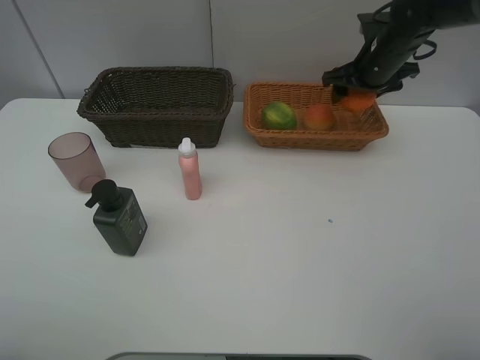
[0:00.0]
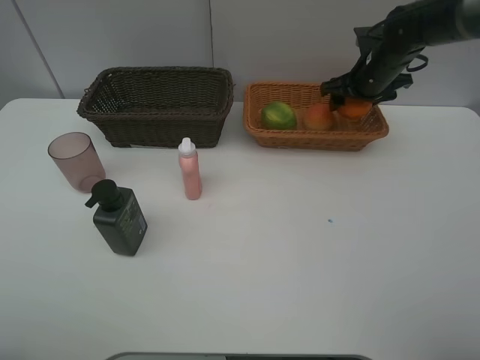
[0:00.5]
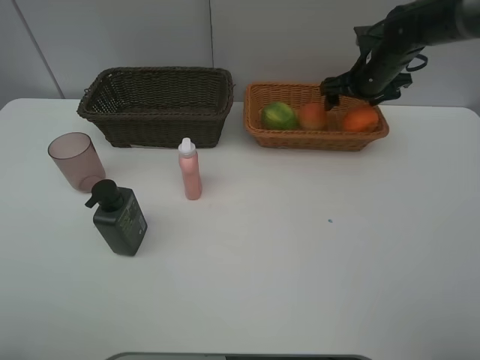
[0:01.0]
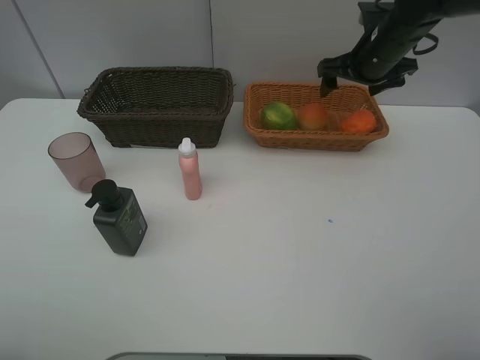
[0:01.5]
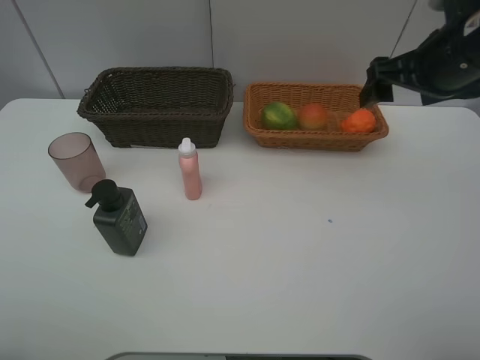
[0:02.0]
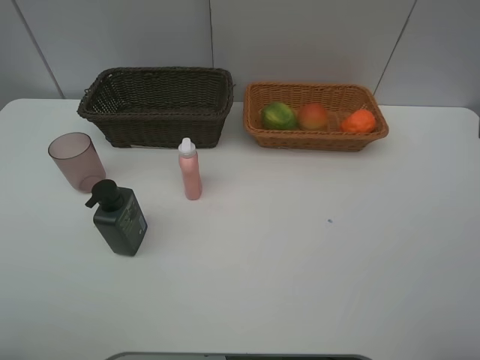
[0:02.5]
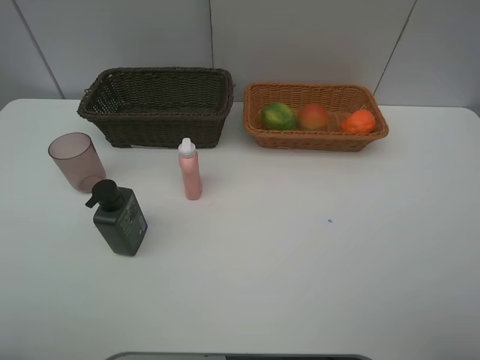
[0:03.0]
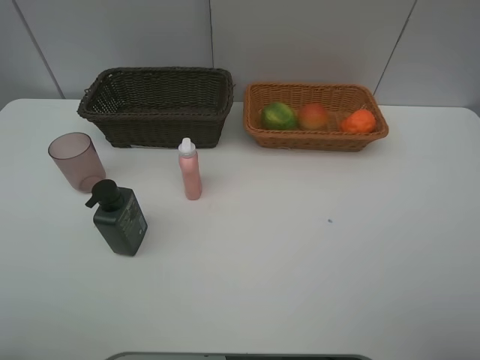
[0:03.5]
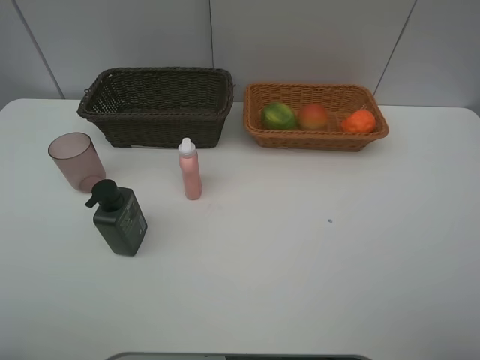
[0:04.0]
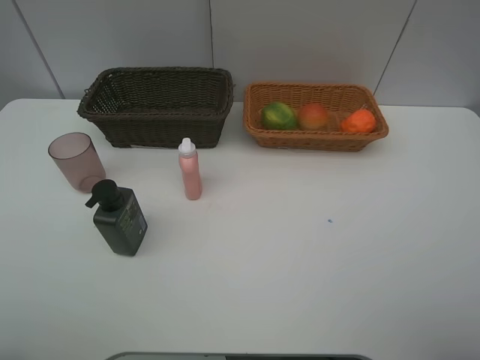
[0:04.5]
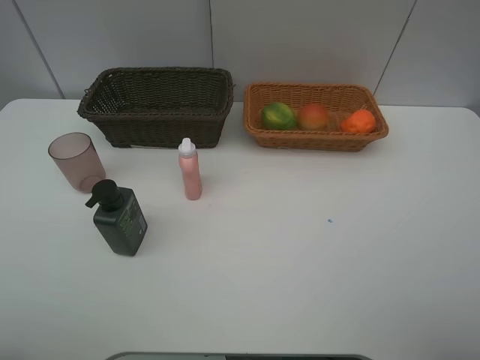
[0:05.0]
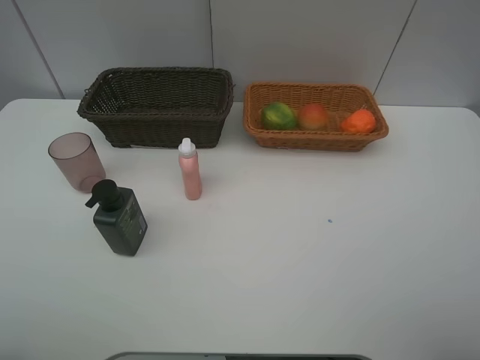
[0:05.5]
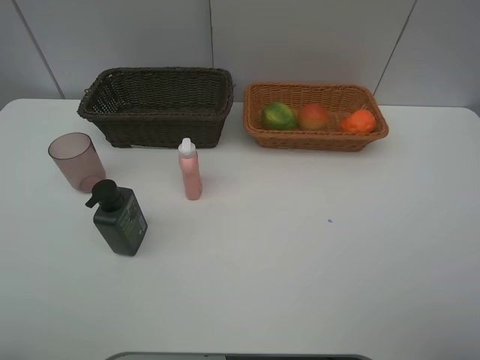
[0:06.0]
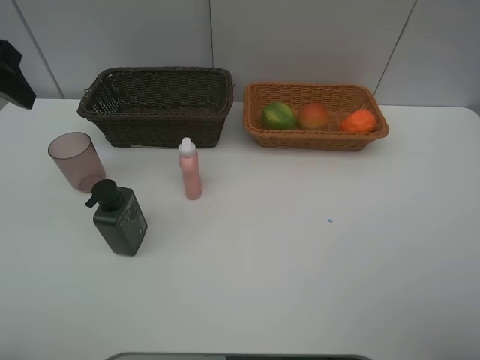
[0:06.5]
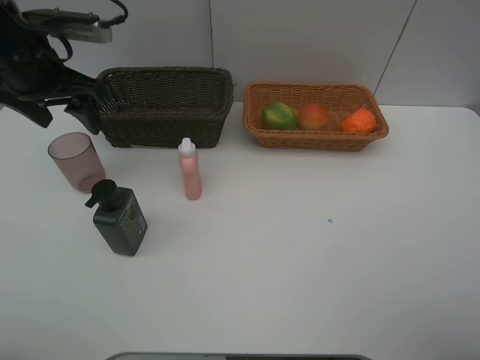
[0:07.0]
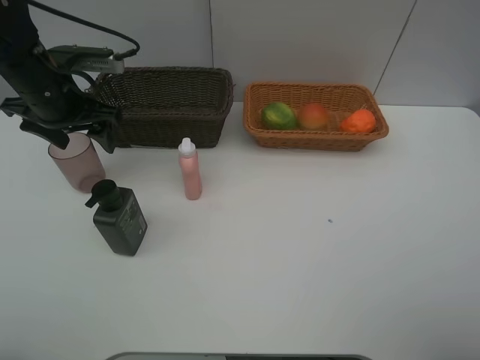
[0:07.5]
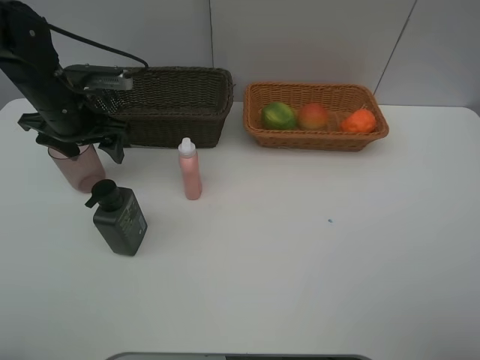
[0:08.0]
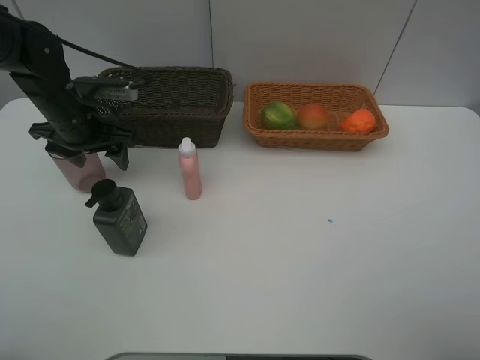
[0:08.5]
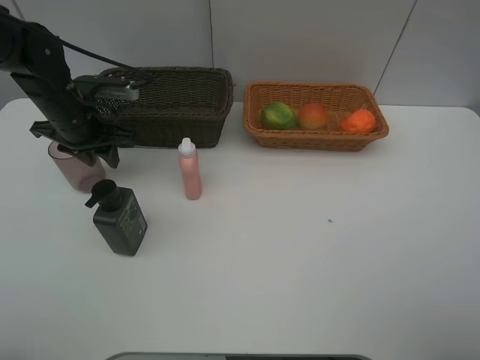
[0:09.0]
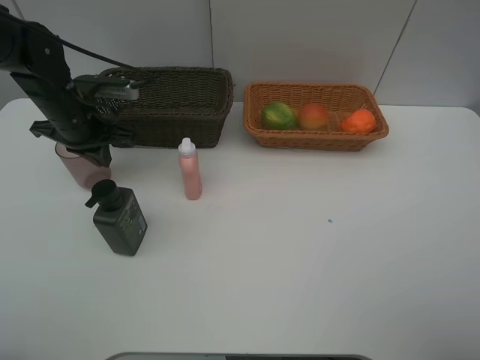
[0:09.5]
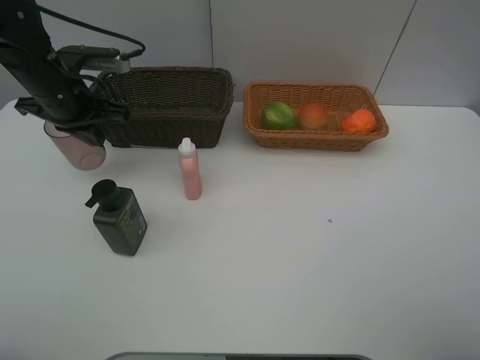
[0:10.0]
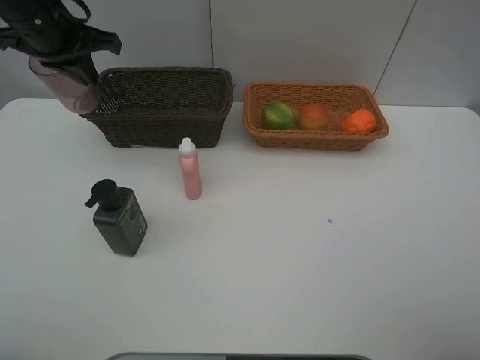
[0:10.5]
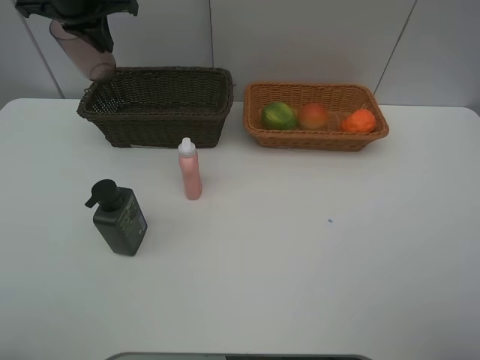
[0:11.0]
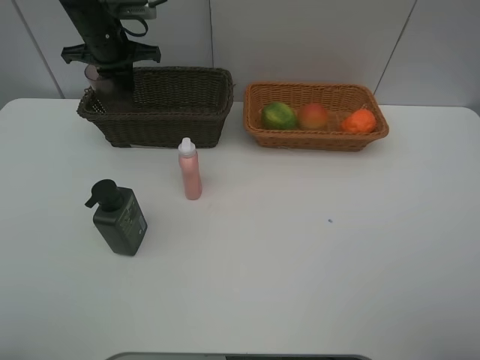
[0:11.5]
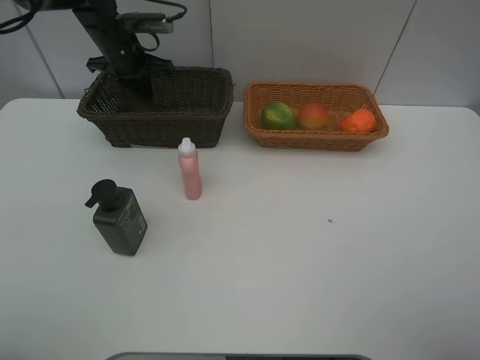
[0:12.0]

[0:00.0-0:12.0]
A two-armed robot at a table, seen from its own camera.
Task of the whole recording: place multiple objects separately in different baskets.
0:00.0 to 0:02.0: The right gripper shifts approximately 20 cm backward and upward, and opens.
0:02.0 to 0:04.0: The right gripper shifts approximately 25 cm backward.
0:06.0 to 0:08.0: The left gripper moves forward and downward, roughly 35 cm.
0:08.0 to 0:10.0: The left gripper closes its fingers.
0:10.0 to 0:12.0: The left gripper heads forward, covering roughly 15 cm.

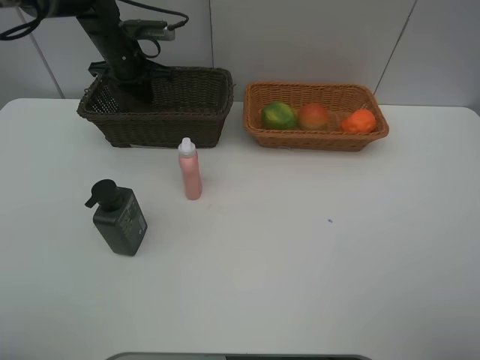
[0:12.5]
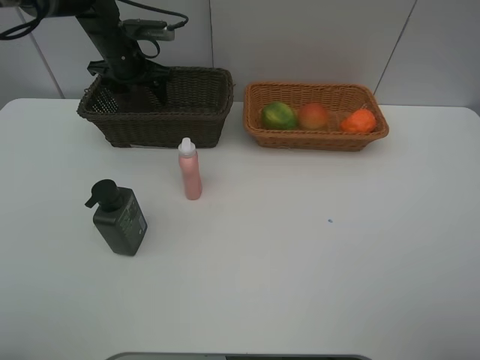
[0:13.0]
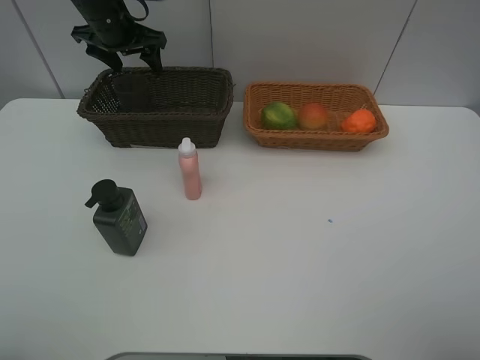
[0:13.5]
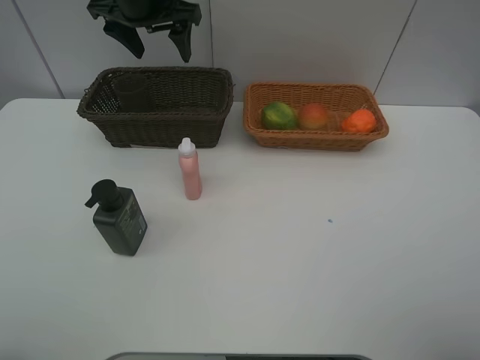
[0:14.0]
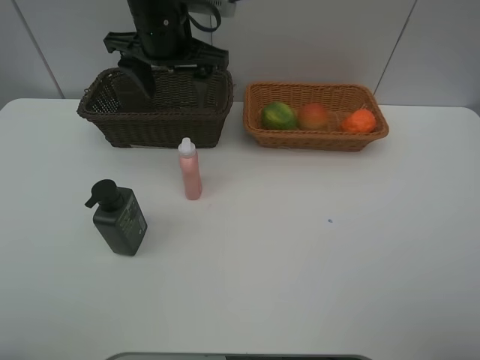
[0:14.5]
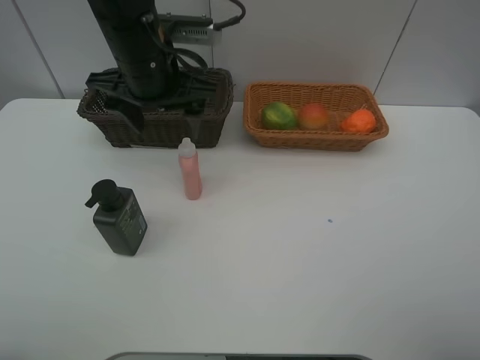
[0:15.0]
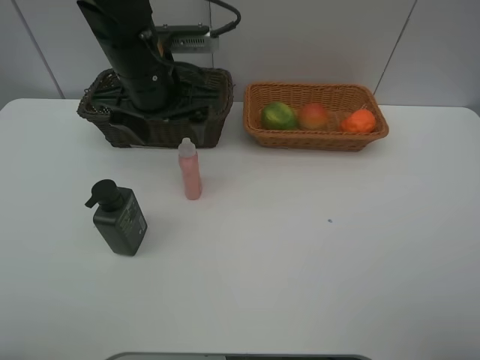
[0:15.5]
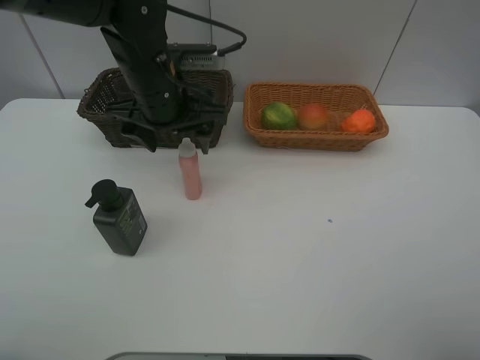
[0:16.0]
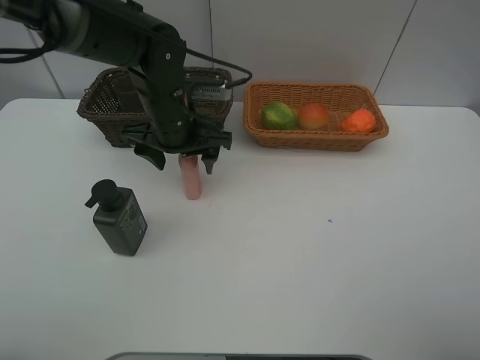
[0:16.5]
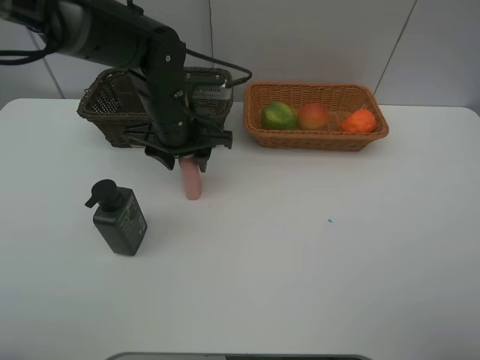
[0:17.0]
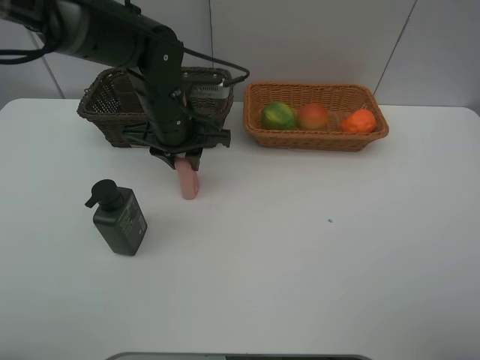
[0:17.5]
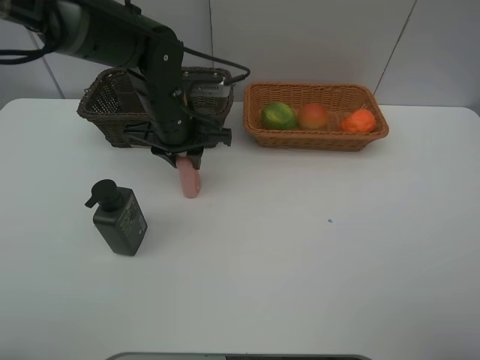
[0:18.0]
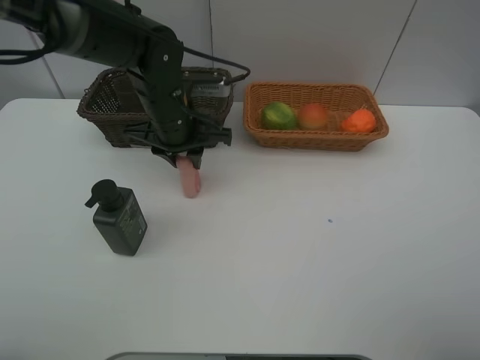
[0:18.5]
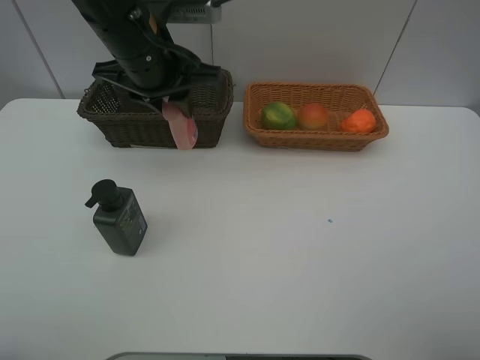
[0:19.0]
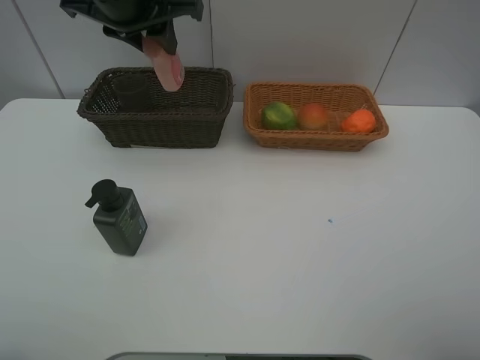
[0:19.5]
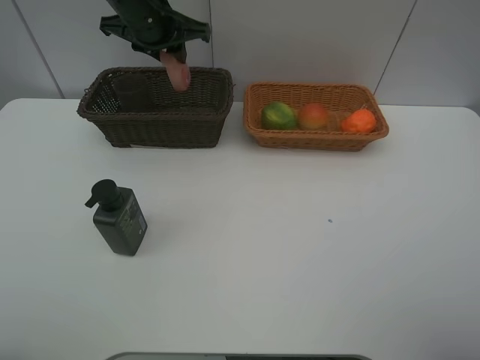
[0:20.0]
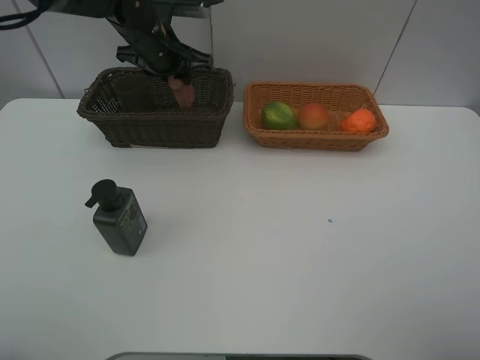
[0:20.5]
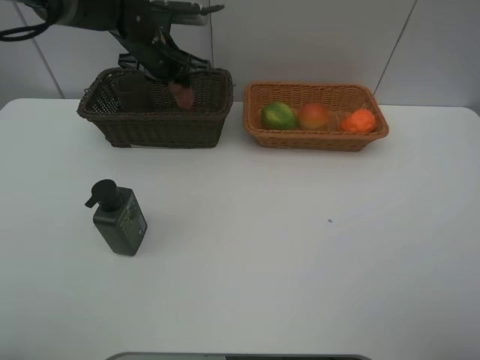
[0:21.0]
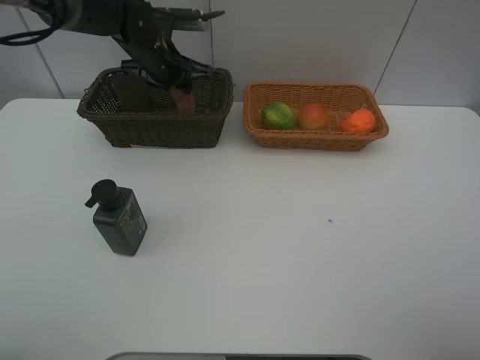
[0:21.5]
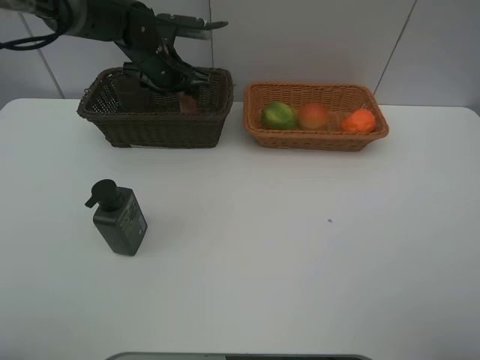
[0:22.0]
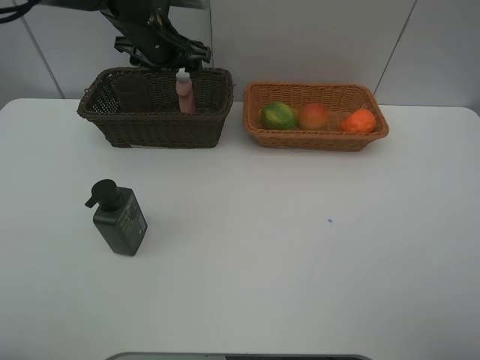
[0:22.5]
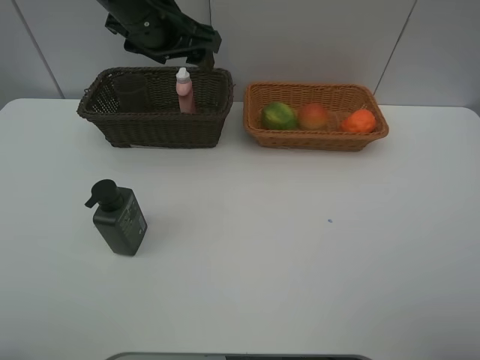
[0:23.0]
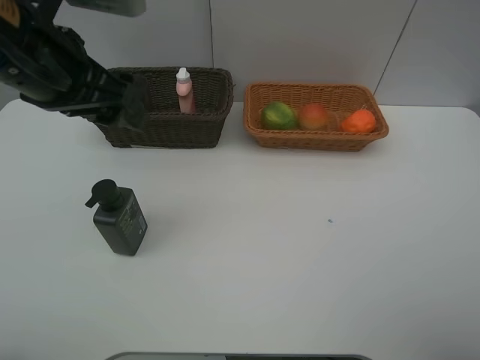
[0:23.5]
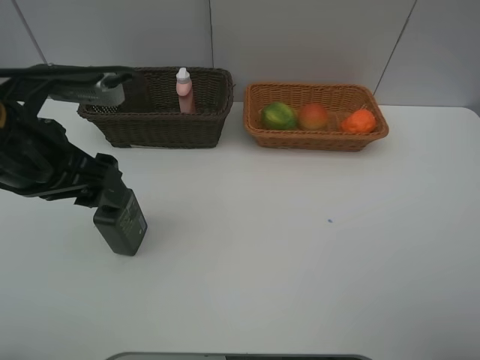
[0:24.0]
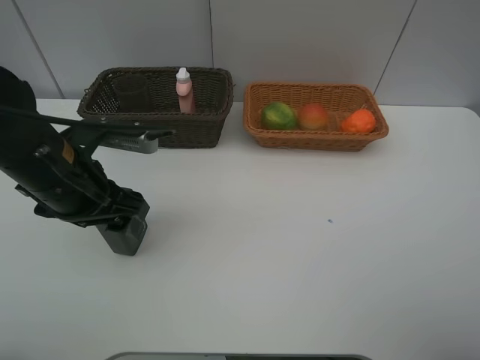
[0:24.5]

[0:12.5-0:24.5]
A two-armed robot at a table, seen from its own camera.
Task of the whole recording: place multiple objects separately in different baskets.
0:12.5 to 0:14.5: The left gripper travels backward, to the right and upward by some 20 cm, and opens.
0:14.5 to 0:16.5: The left gripper goes some 10 cm downward.
0:16.5 to 0:18.5: The left gripper closes.
0:18.5 to 0:20.5: The left gripper shifts roughly 10 cm forward, and moves some 15 cm upward and comes back.
0:20.5 to 0:22.5: The left gripper opens its fingers.
0:22.5 to 0:24.5: The left gripper heads backward, covering some 25 cm.

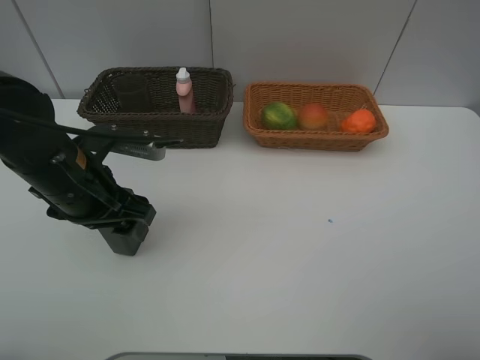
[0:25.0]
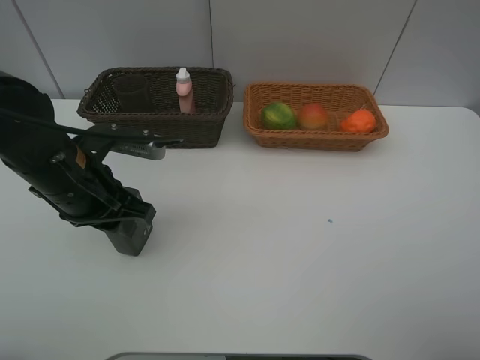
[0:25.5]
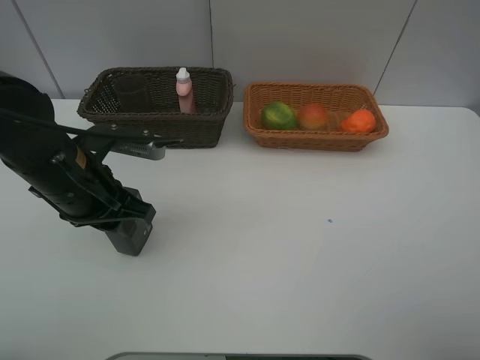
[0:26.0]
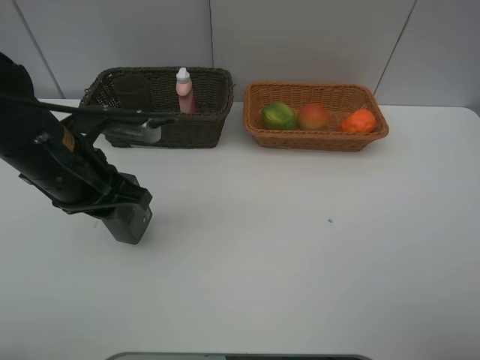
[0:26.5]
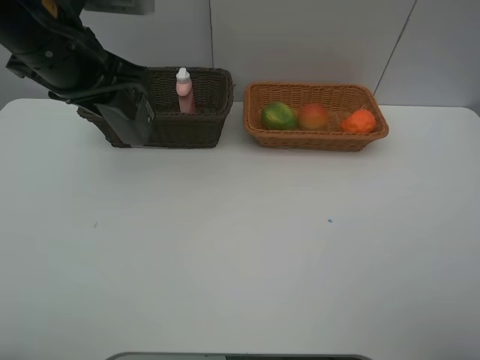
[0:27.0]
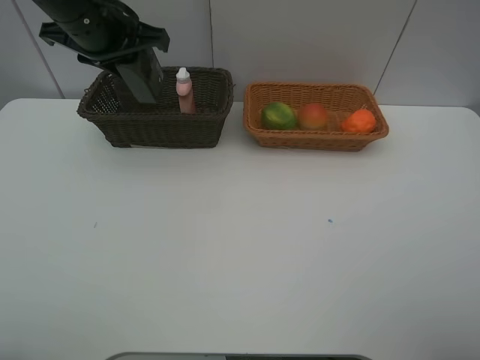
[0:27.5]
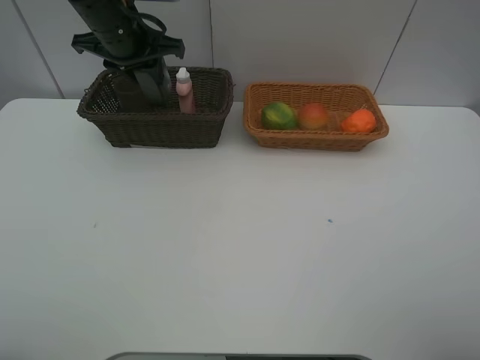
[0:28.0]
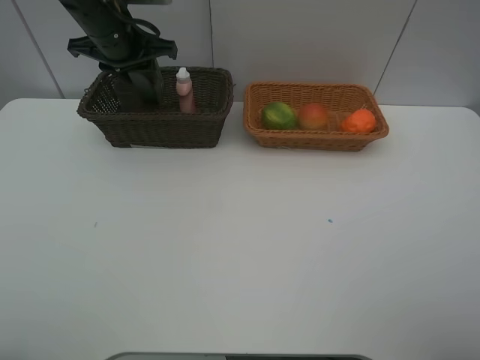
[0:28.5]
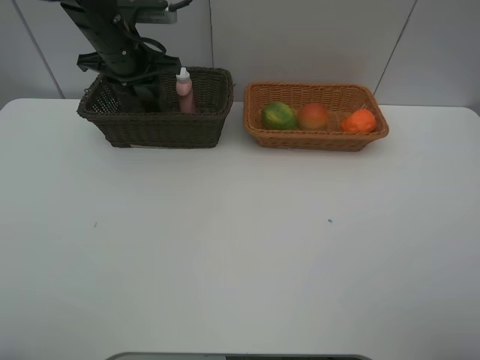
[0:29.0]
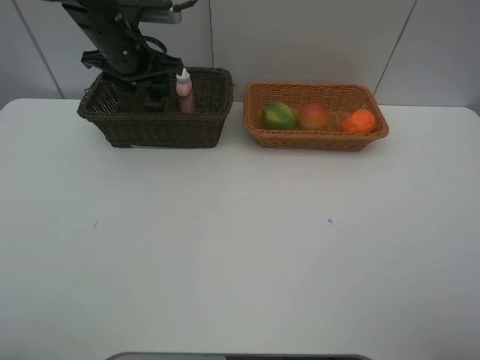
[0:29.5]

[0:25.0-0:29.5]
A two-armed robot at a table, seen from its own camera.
Task of the whole recording: place multiple objects separately in different baskets.
0:25.0 to 0:27.0: The left gripper shifts approximately 15 cm upward and forward, and closes up.
0:27.0 to 0:29.5: The left gripper moves forward and downward, some 15 cm, and opens.
